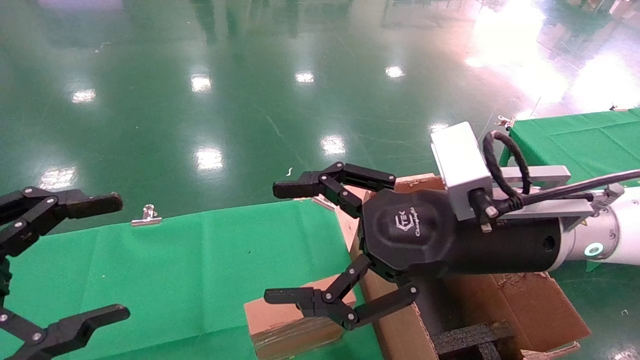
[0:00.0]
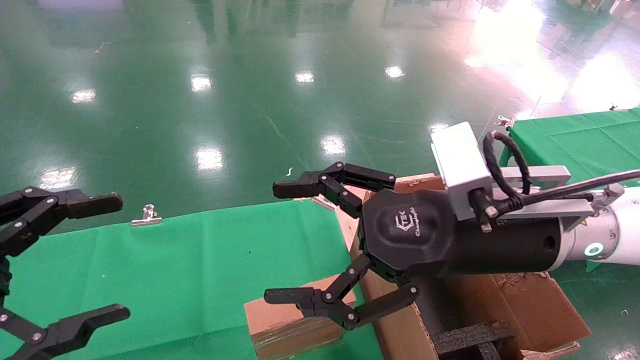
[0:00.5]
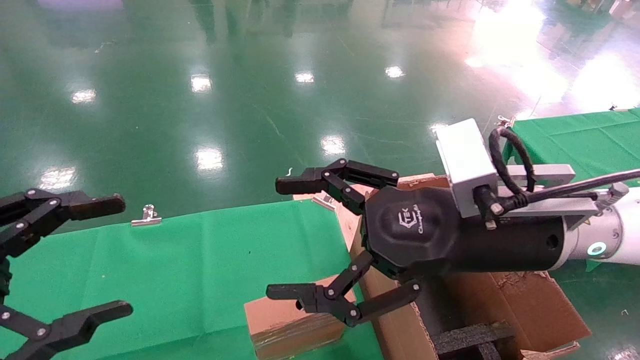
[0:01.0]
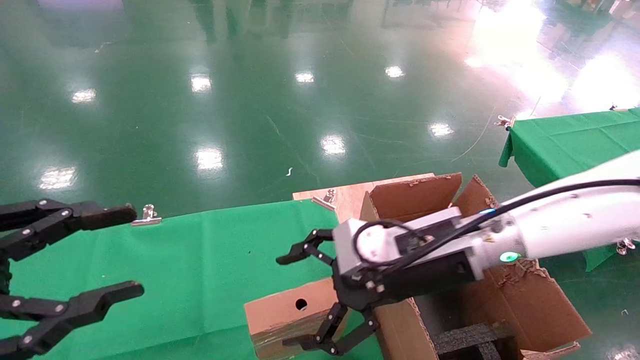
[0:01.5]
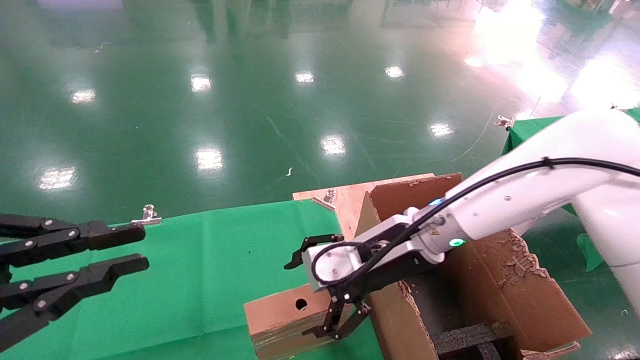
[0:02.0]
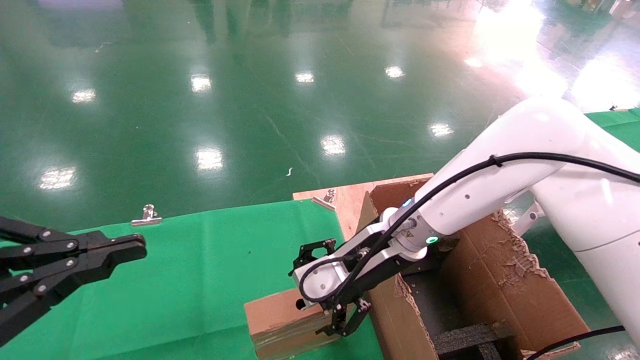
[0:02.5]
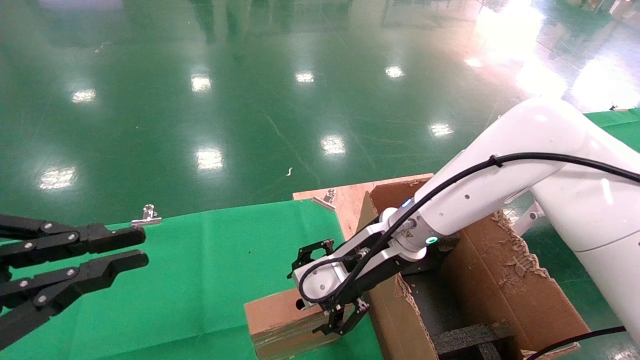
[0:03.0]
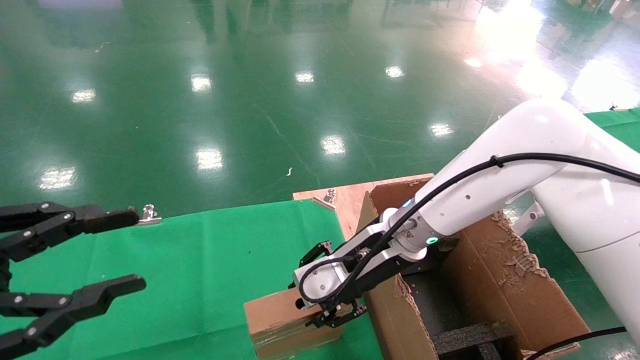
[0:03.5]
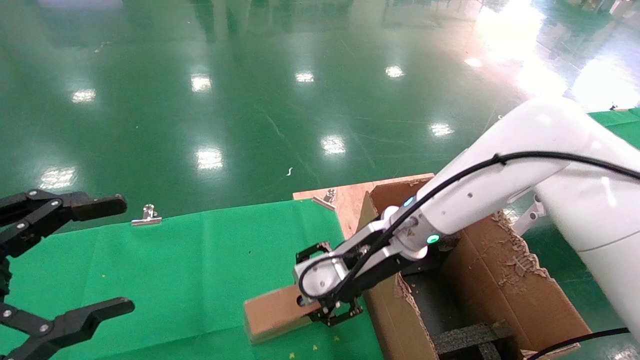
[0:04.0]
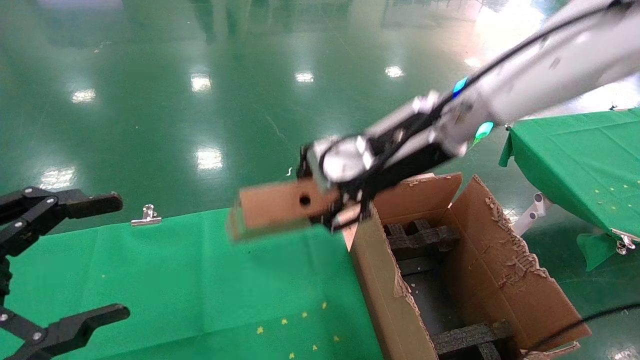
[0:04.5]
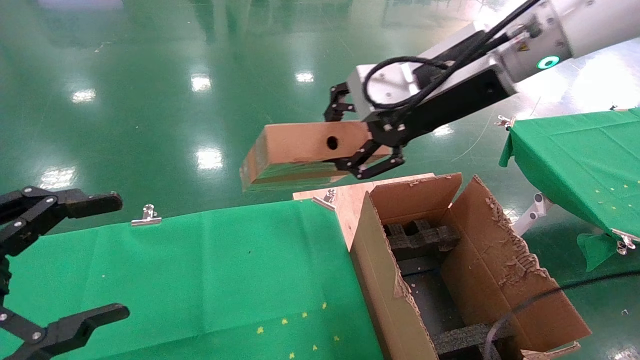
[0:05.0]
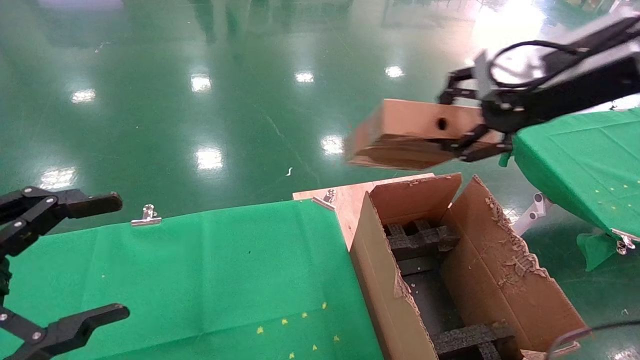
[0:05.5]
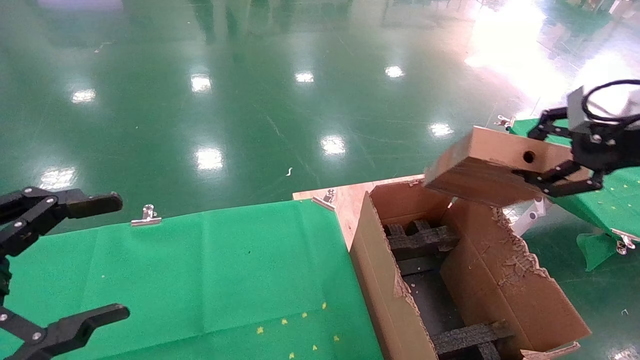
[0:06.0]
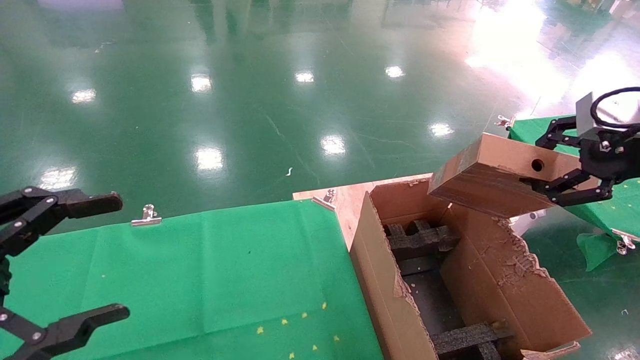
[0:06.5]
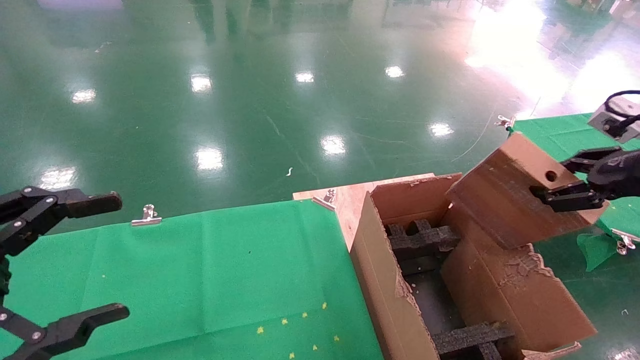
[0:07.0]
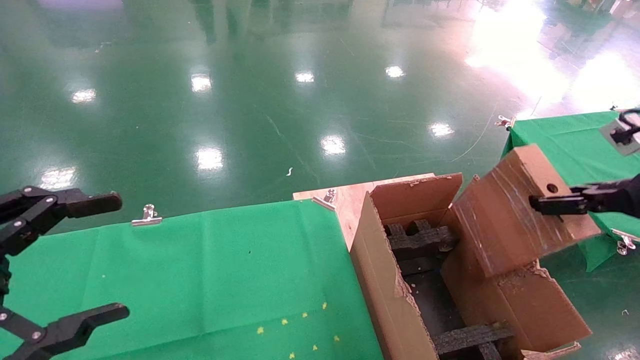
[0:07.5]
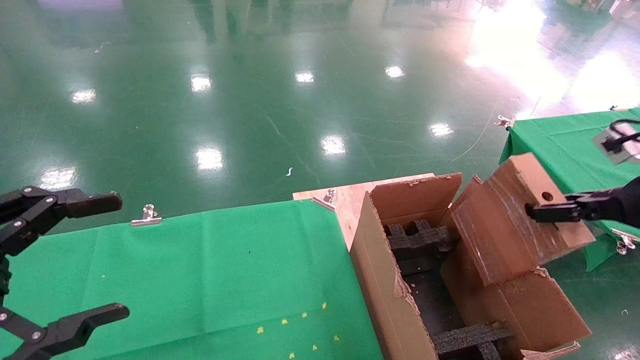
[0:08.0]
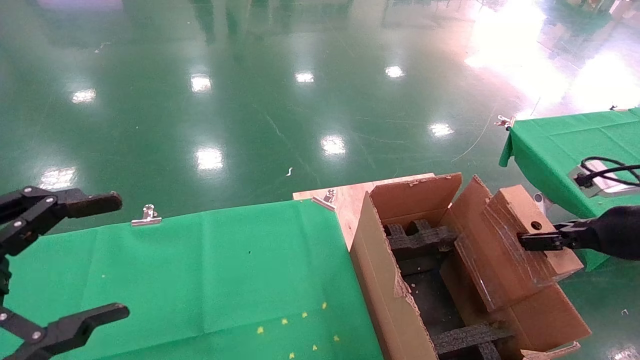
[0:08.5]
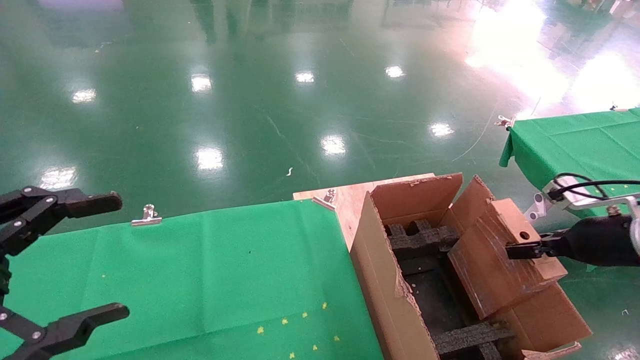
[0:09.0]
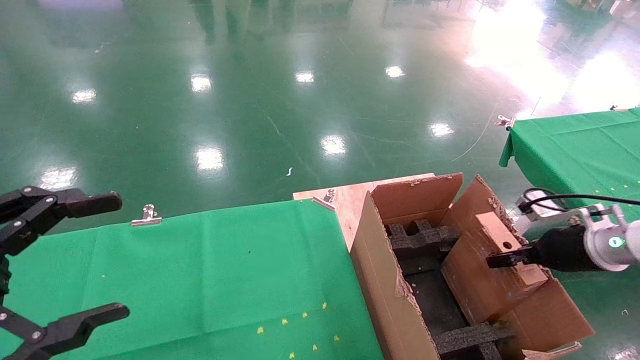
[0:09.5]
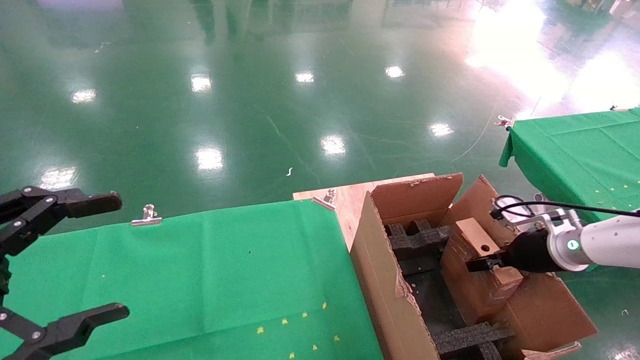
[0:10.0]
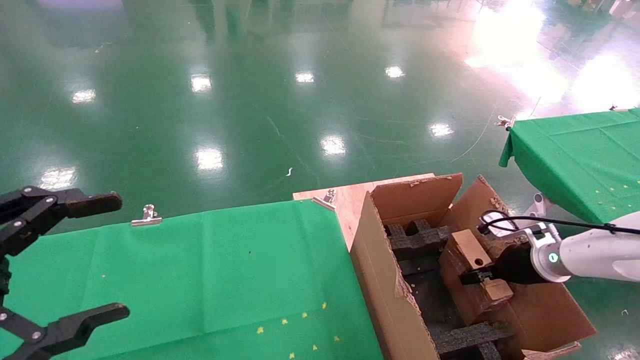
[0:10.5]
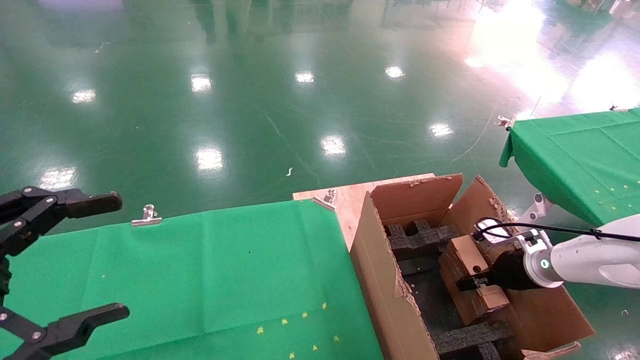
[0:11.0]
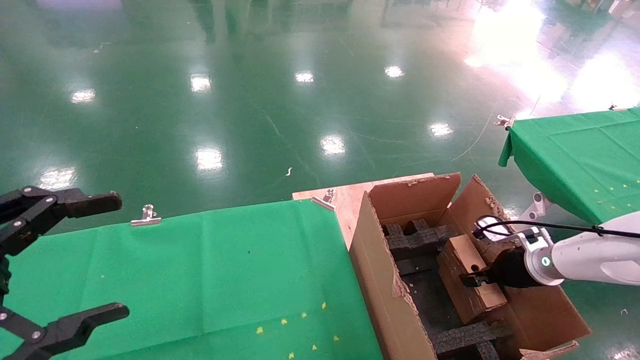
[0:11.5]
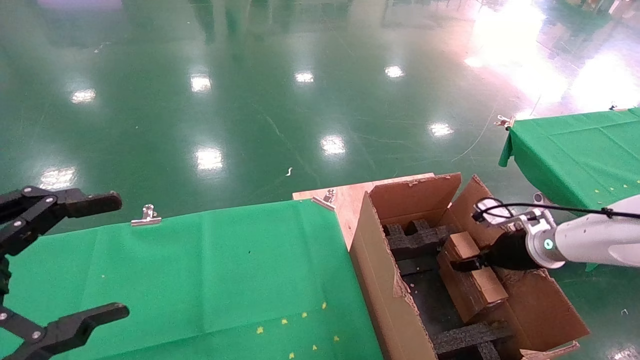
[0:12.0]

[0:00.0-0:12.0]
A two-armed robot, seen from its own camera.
Task of the whole recording: using a robotic arm to pick up a cardboard box and palace it the carton.
Step, 0:01.5 to 0:03.5: Pick up the mouse and the power cord paper box.
0:00.0 to 0:02.0: The right gripper shifts roughly 10 cm forward and downward, while the left gripper closes.
0:02.0 to 0:04.0: The left gripper opens its fingers; the right gripper closes its fingers.
0:04.0 to 0:06.0: The right gripper goes about 35 cm to the right and upward.
0:06.0 to 0:08.0: The right gripper moves downward and to the right, approximately 15 cm.
0:08.0 to 0:10.0: The right gripper is displaced downward and forward by roughly 20 cm.
0:10.0 to 0:12.0: The right gripper opens.

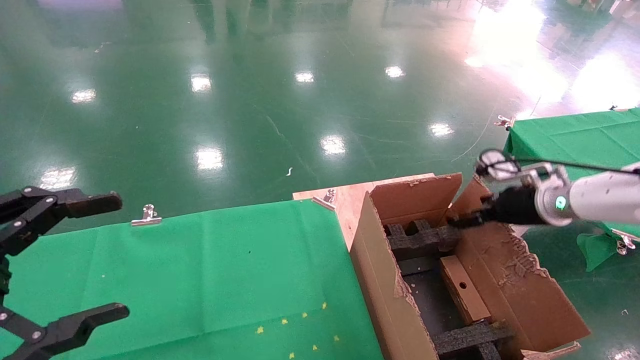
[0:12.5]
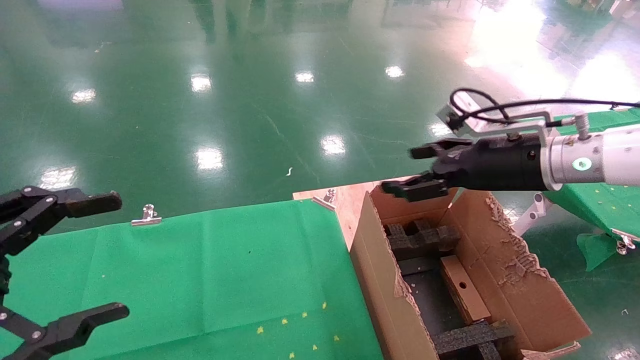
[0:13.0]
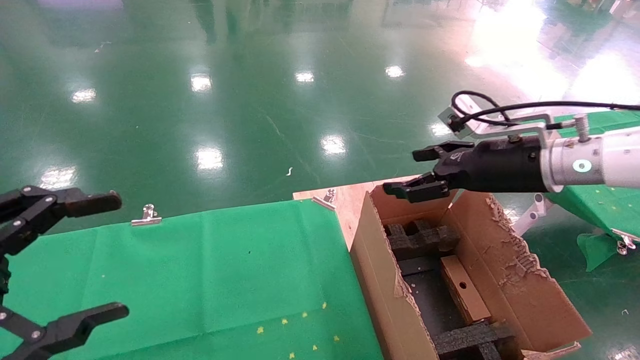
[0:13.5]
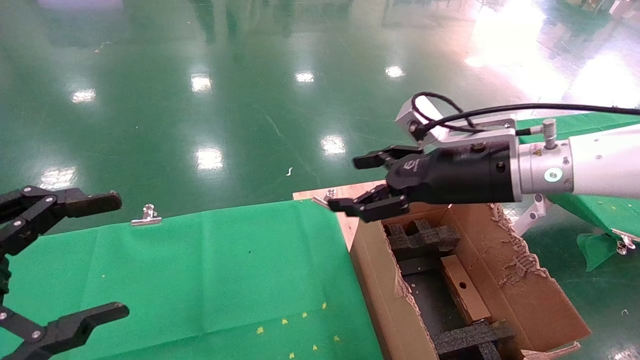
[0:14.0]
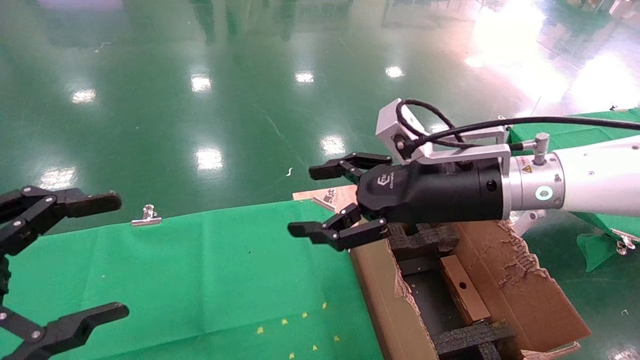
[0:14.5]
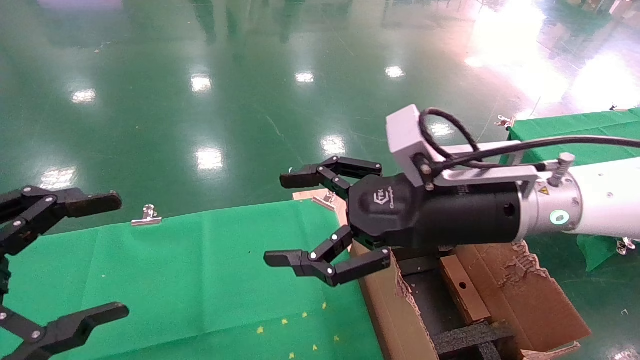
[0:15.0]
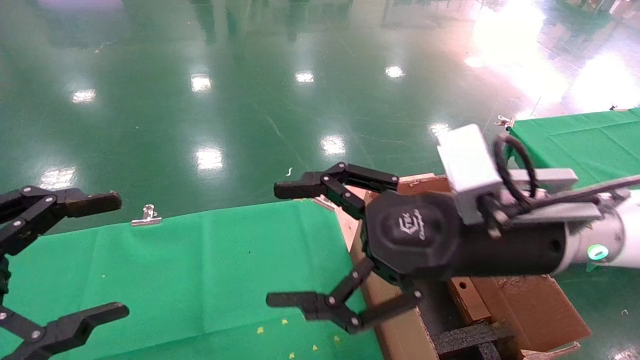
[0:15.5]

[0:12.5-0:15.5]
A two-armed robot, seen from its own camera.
Task of the whole recording: using a robotic arm to pick up a cardboard box and palace it the carton.
0:12.5 to 0:14.0: The right gripper is displaced to the left, upward and backward by roughly 20 cm.
0:14.0 to 0:15.5: The right gripper heads backward and to the left, covering some 10 cm.

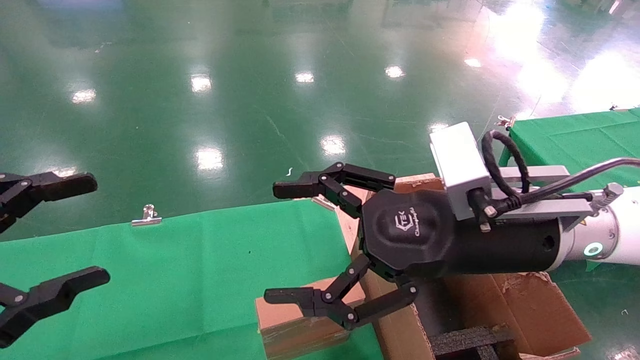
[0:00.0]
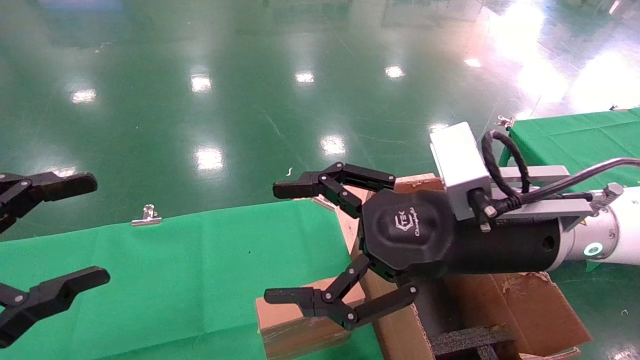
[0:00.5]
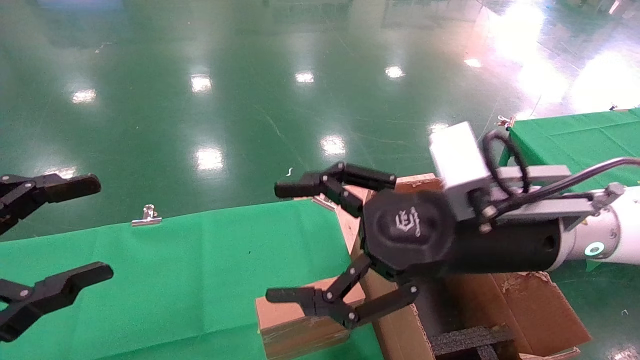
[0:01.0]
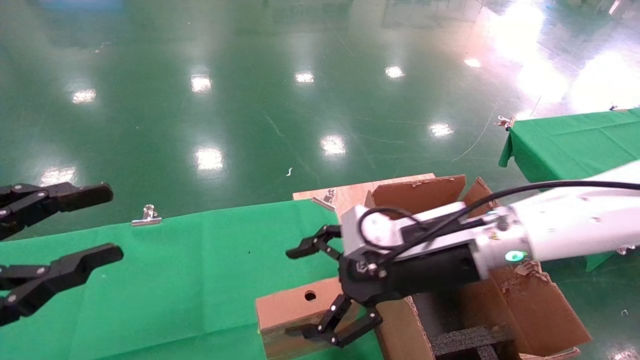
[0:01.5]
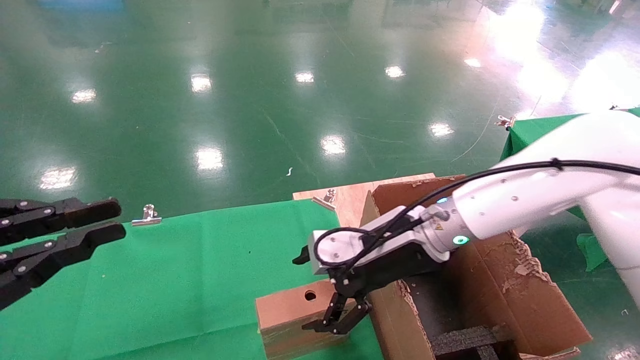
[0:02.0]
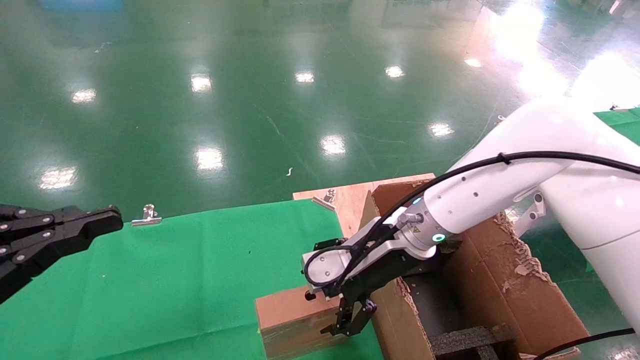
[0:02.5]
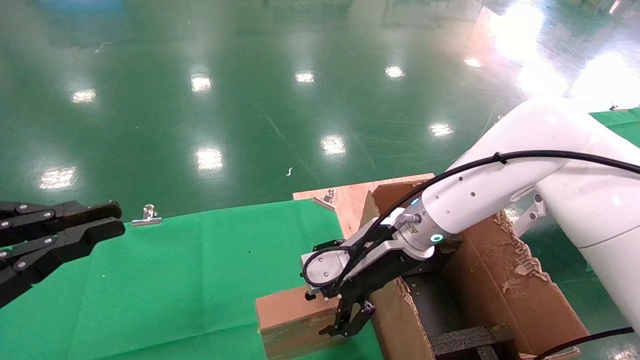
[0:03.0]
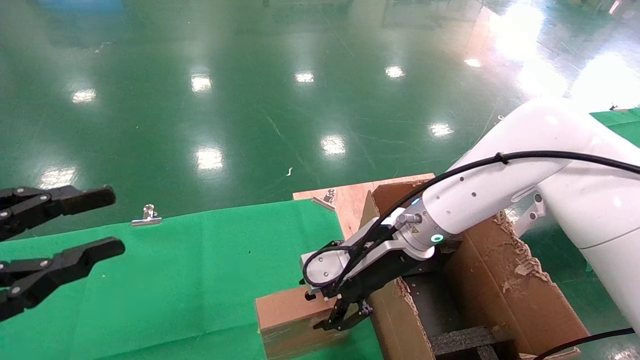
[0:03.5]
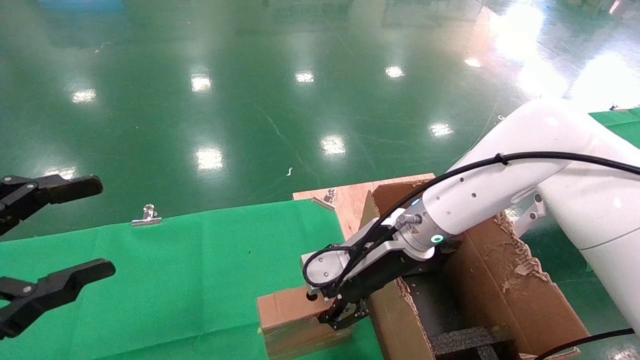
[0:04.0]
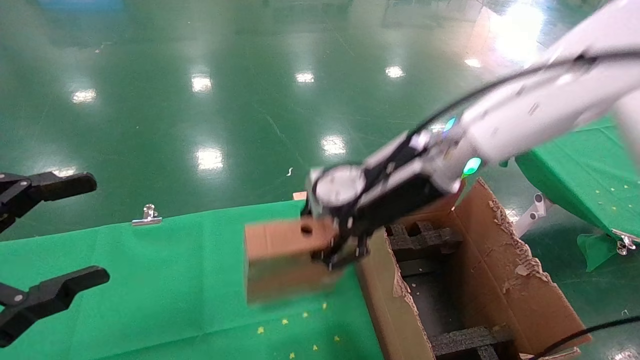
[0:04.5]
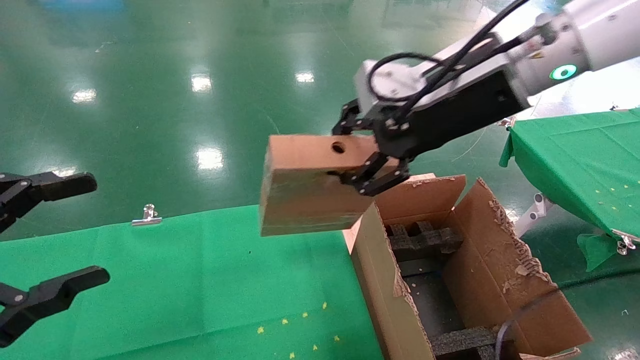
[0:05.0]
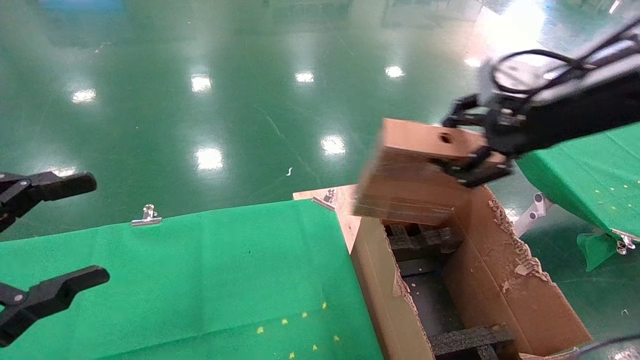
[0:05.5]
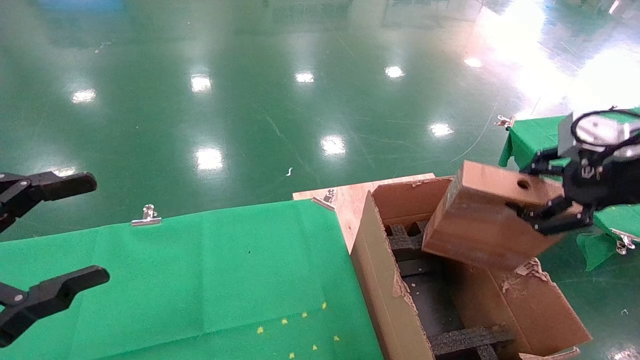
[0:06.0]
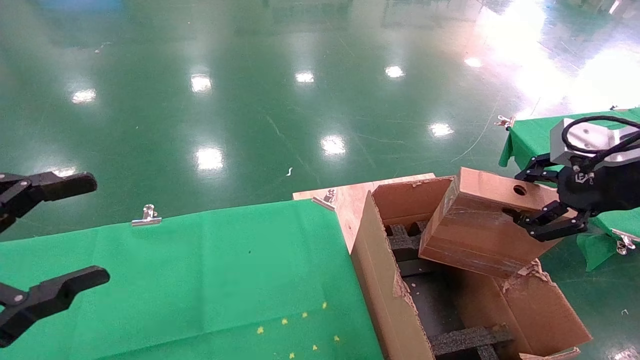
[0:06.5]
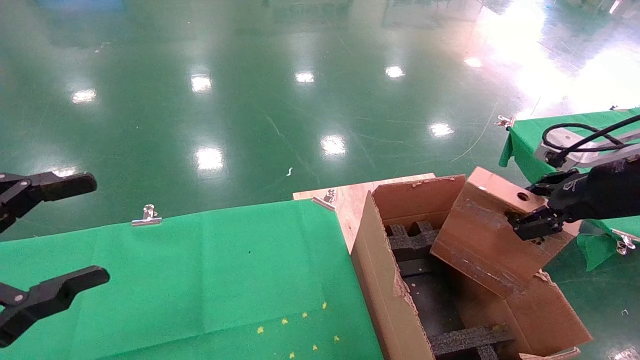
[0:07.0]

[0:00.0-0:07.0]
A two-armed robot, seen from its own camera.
Task of the whole recording: using a robotic arm to pick up a cardboard box and palace it the carton.
Step, 0:01.5 to 0:03.5: Pick up the mouse and the power cord paper box.
0:00.0 to 0:02.0: The right gripper heads forward and downward, covering about 10 cm. Meanwhile the left gripper closes up.
0:02.0 to 0:03.5: The grippers move only a little.
0:03.5 to 0:05.0: The left gripper opens. Meanwhile the right gripper goes roughly 20 cm upward, and closes its fingers.
0:05.0 to 0:07.0: The right gripper goes some 25 cm to the right and downward.
